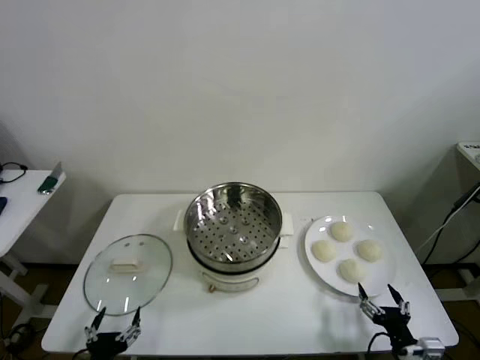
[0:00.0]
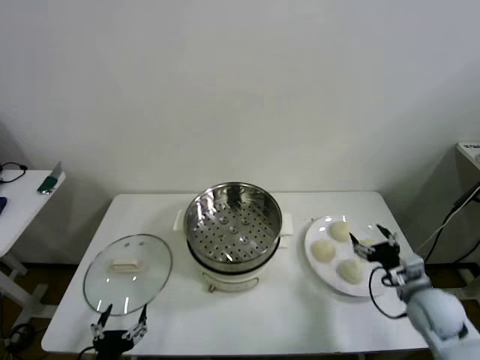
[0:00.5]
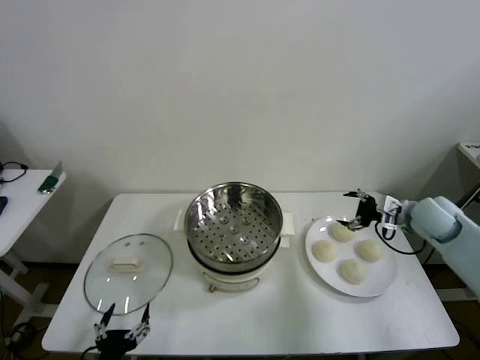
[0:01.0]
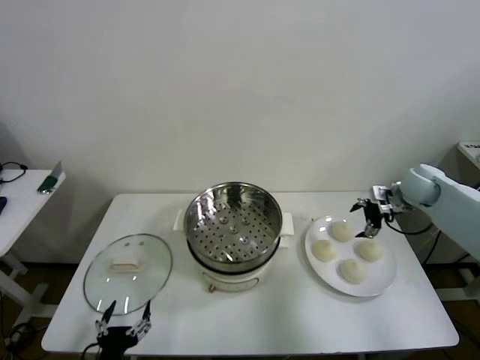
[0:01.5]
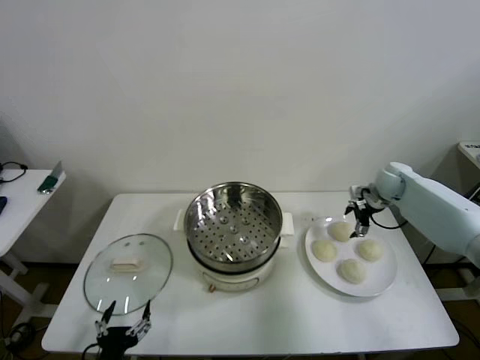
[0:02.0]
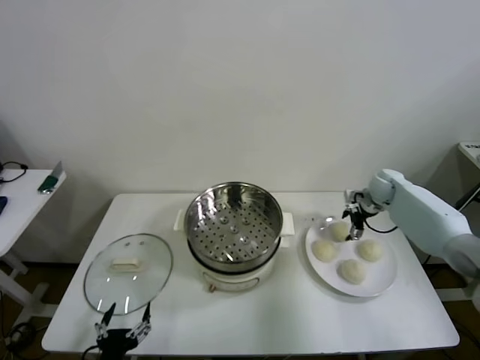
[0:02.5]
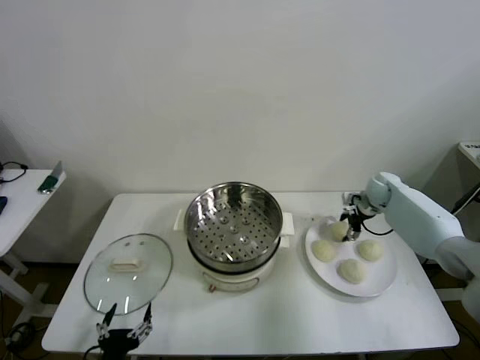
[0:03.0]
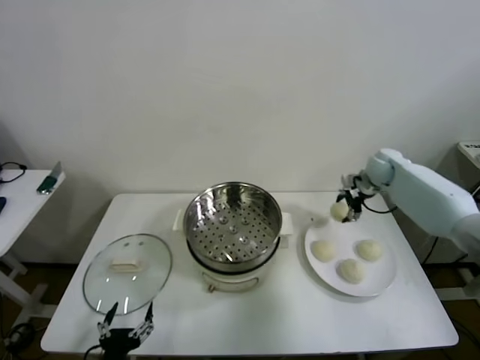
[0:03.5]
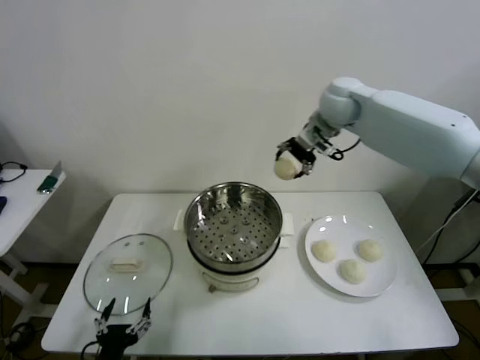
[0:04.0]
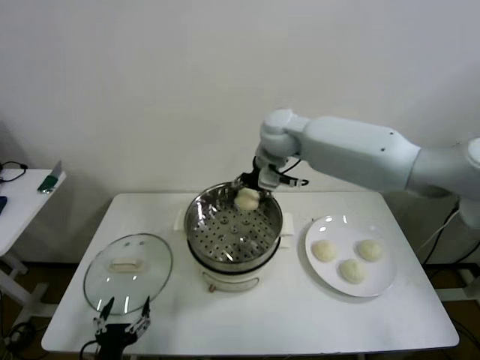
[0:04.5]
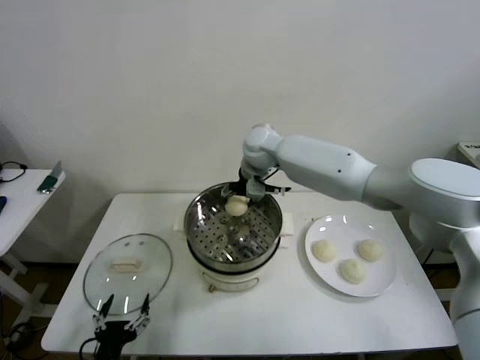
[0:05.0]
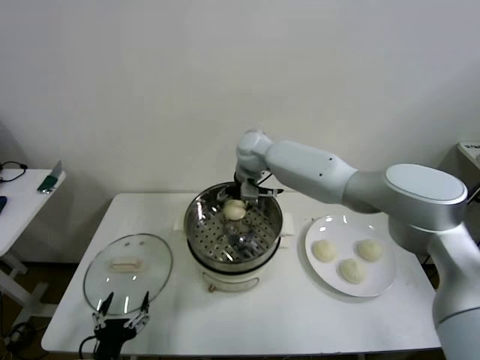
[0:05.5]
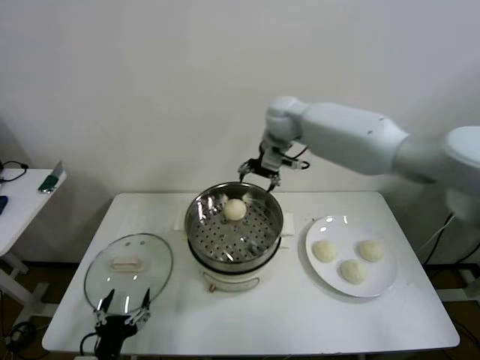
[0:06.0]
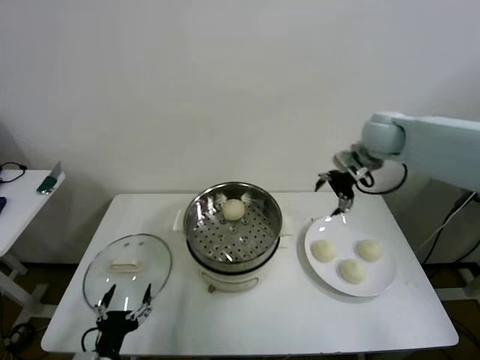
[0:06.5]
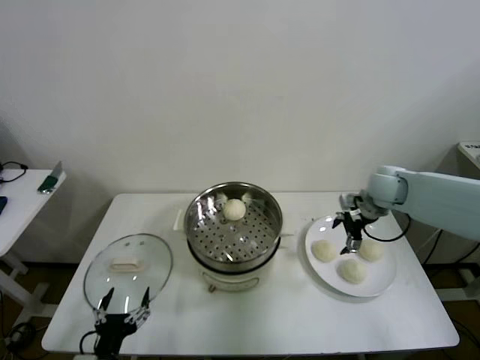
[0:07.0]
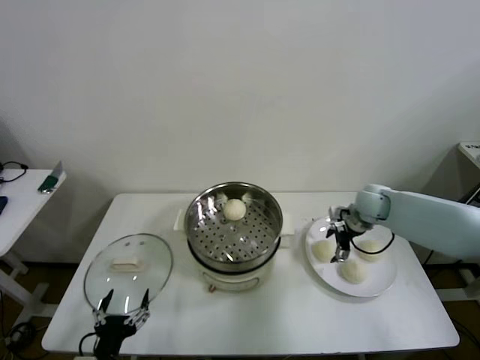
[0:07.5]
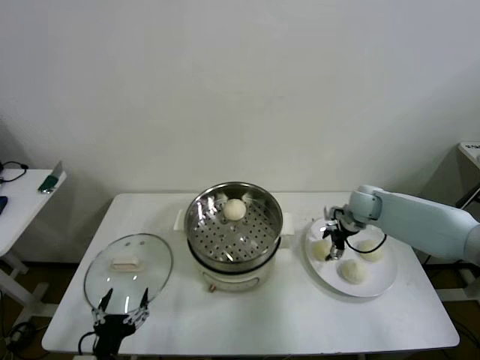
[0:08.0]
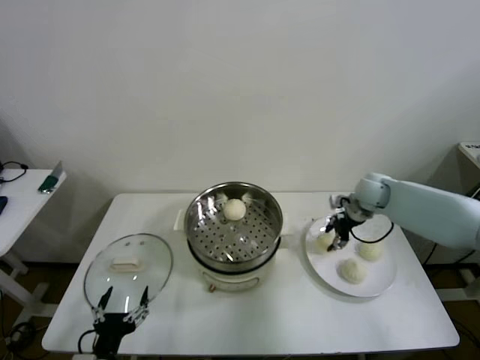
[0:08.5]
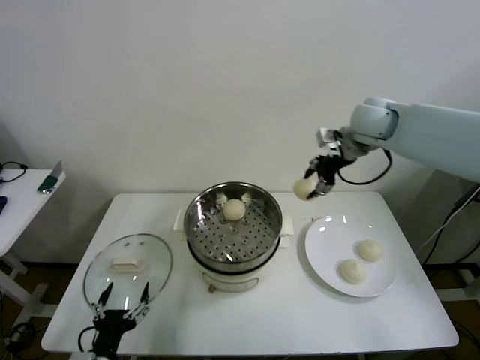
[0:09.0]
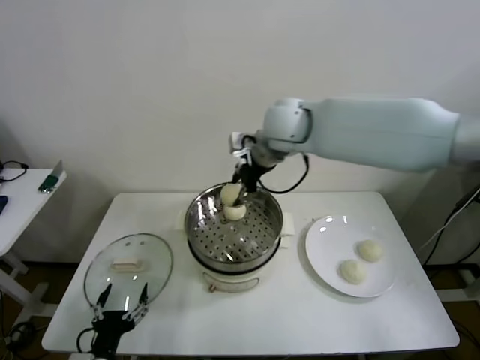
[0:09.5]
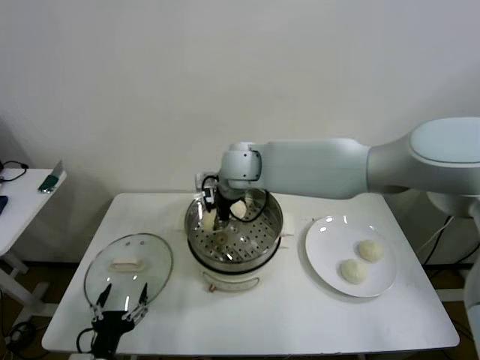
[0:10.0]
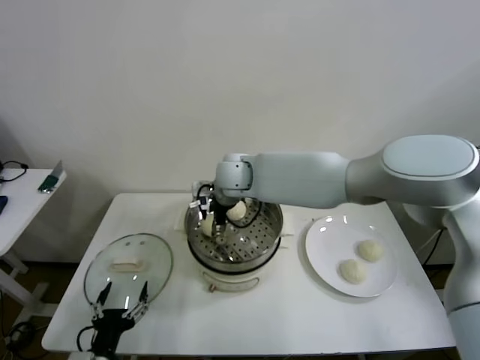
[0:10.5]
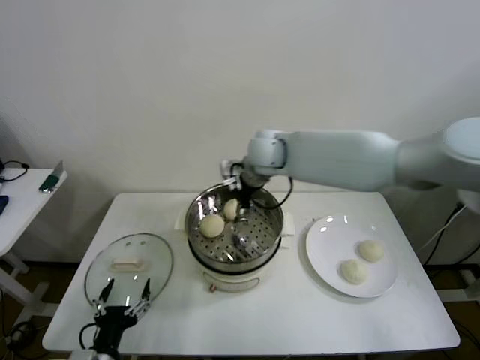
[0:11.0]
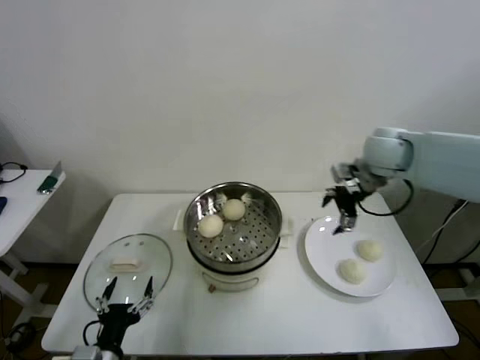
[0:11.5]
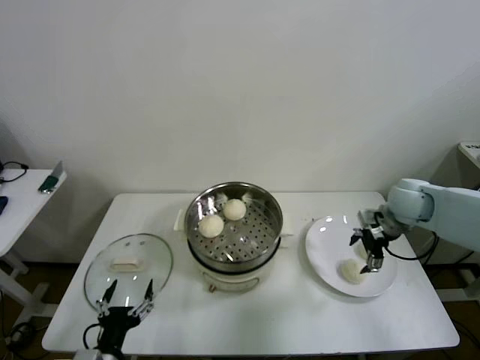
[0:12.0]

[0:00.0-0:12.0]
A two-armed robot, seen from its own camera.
Step, 0:00.0 to 0:03.0: Grasp the baozi in the plate with right gripper.
Step, 0:03.5 to 0:05.5: Place the baozi on the steamer with right gripper.
Step, 0:06.0 to 0:08.0: Grasp the baozi in the plate with right gripper.
Step, 0:08.5 to 0:10.5: Place the baozi on the steamer with right gripper.
0:02.0 to 0:04.0: The right gripper heads upward and to the left, covering roughly 35 cm, and closes up.
0:04.0 to 0:06.0: The right gripper reaches roughly 15 cm to the left, then returns, and opens its fingers.
0:06.0 to 0:08.0: The right gripper moves downward and to the right, some 30 cm, and closes its fingers.
0:08.0 to 0:10.0: The right gripper is displaced to the left and upward by about 35 cm, and closes its fingers.
0:10.0 to 0:12.0: The right gripper heads to the right, covering approximately 40 cm, and opens its fingers.

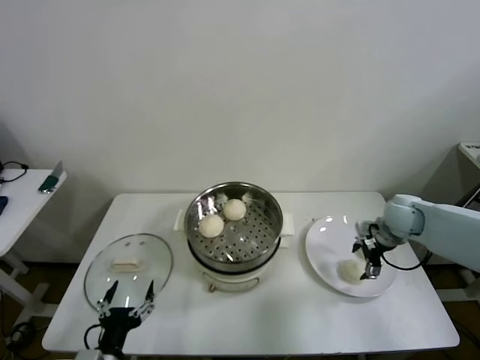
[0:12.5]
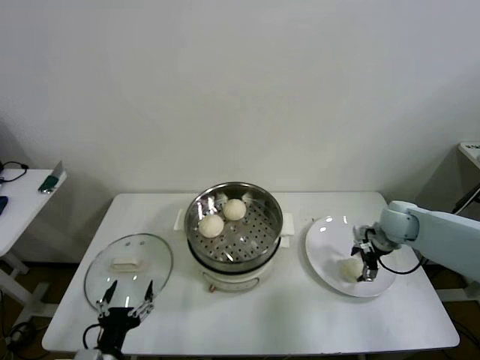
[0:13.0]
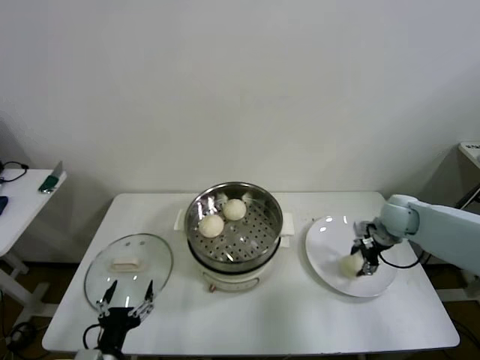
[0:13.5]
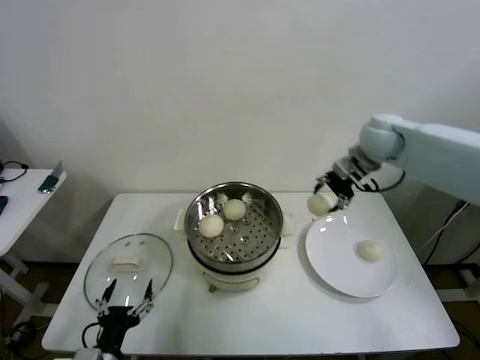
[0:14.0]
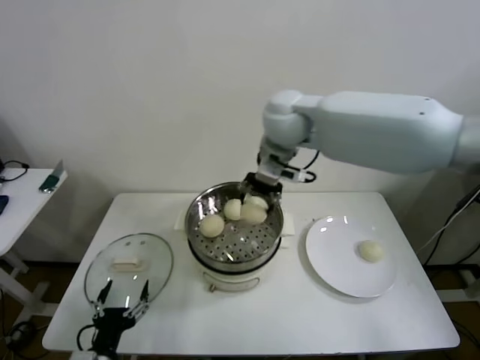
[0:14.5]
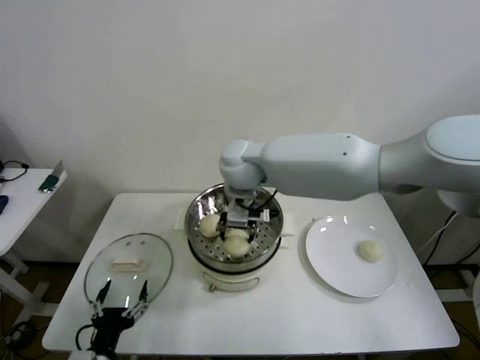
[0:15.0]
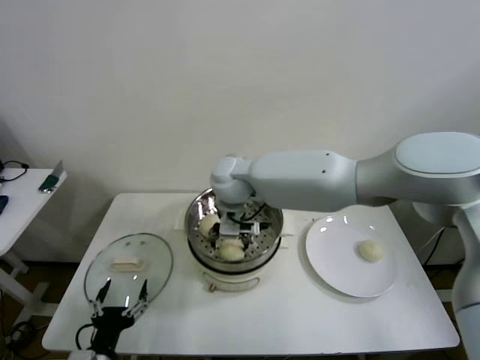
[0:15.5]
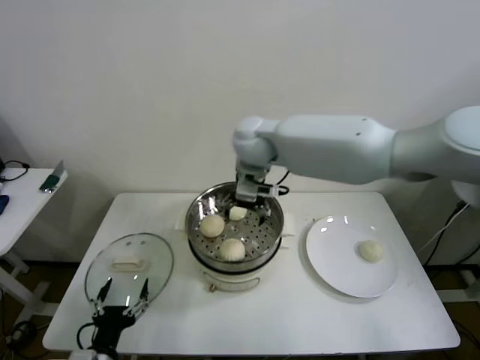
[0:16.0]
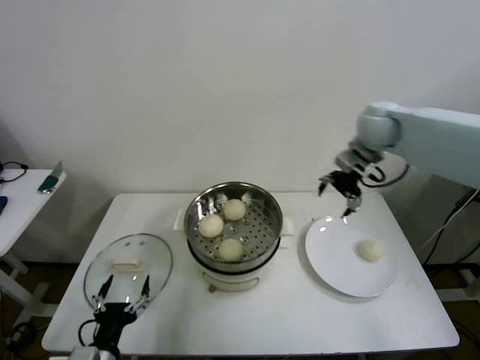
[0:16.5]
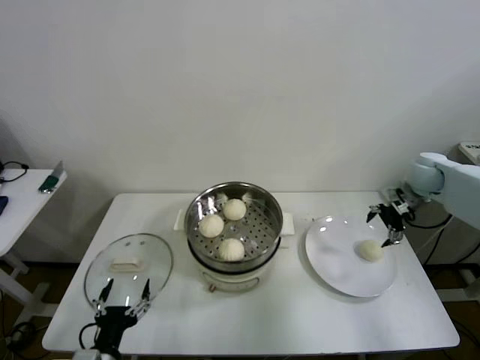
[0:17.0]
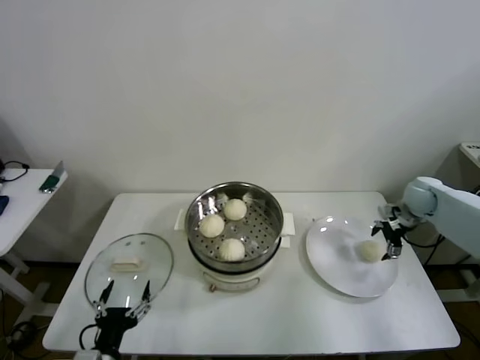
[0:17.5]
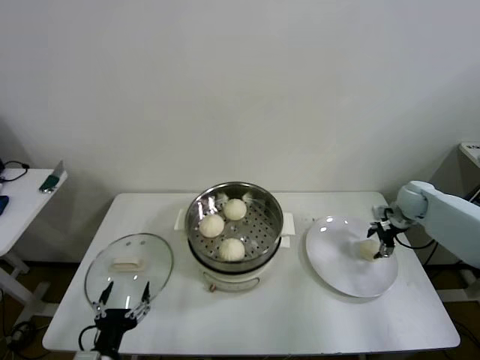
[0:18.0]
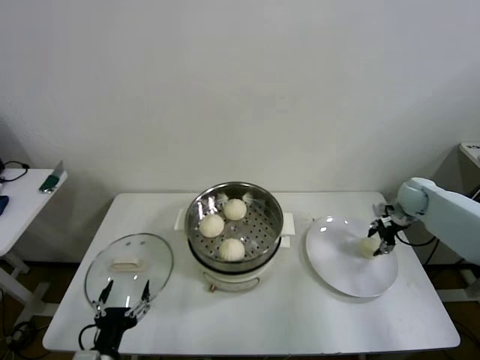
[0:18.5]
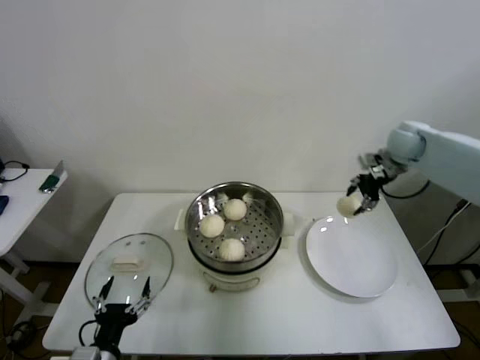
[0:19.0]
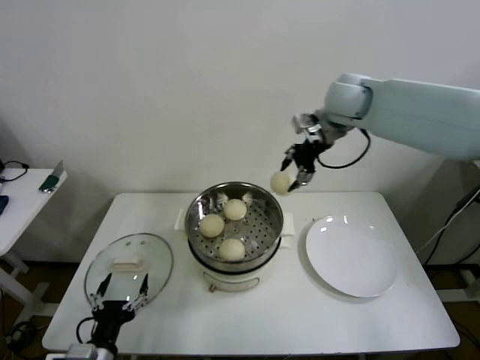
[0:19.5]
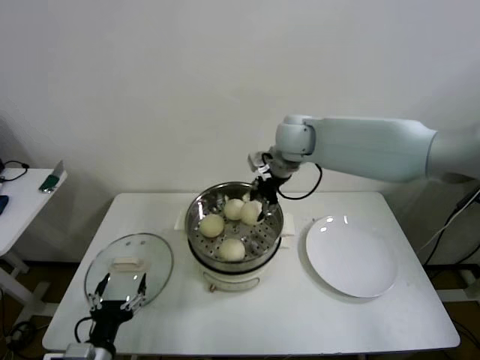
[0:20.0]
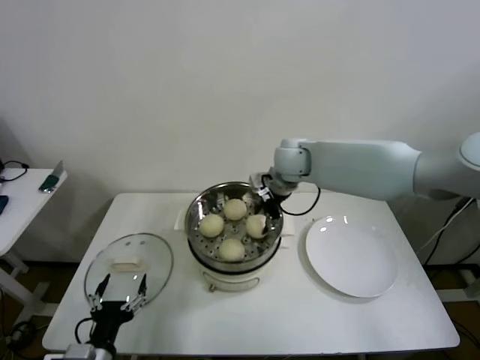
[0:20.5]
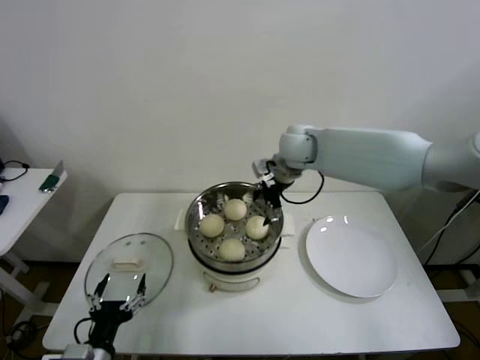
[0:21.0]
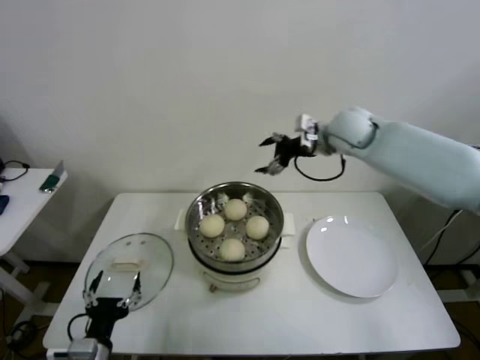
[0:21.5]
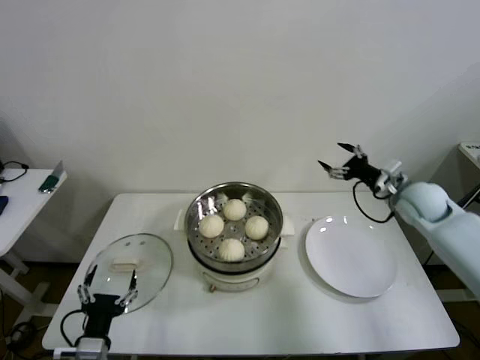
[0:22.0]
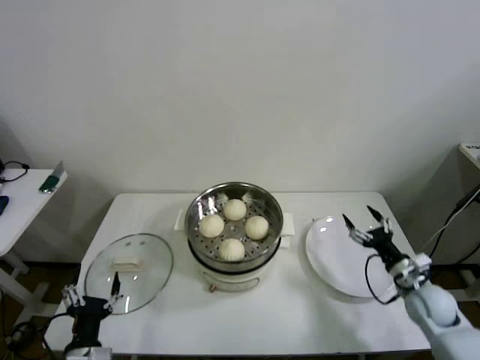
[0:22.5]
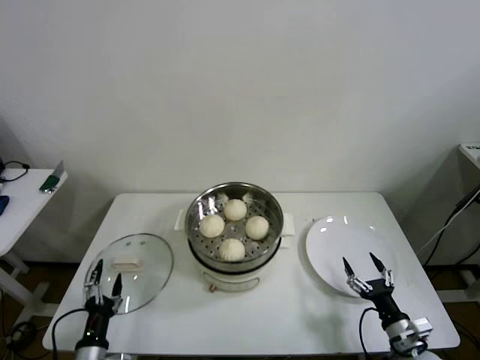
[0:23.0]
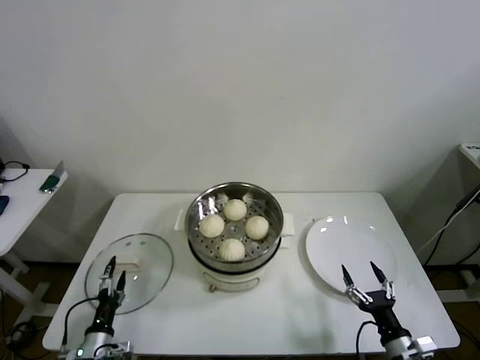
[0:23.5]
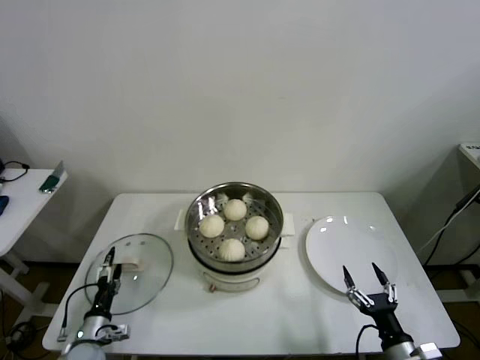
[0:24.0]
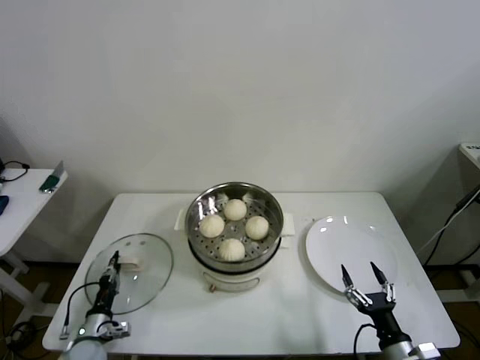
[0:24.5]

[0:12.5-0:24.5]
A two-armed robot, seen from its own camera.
Step, 0:13.0 to 0:15.5: Place the baozi on the steamer with right gripper.
Step, 0:16.0 to 0:18.0: Grasp the baozi in the plate with right gripper.
Step, 0:18.5 to 0:21.0: Place the baozi on the steamer with right gripper.
0:12.5 to 0:14.5: The right gripper heads to the left and upward, covering roughly 40 cm, and closes its fingers.
0:14.5 to 0:16.5: The right gripper is displaced to the right by roughly 25 cm, and opens up.
0:16.5 to 0:18.5: The right gripper moves downward and to the right, some 25 cm, and closes its fingers.
0:18.5 to 0:20.5: The right gripper heads to the left, covering about 35 cm.
0:20.5 to 0:22.5: The right gripper heads to the right, downward and backward, covering some 50 cm, and opens.
0:22.5 to 0:24.5: The left gripper moves downward, forward and to the left, about 20 cm, and closes. Meanwhile the right gripper moves backward and to the left, roughly 20 cm.

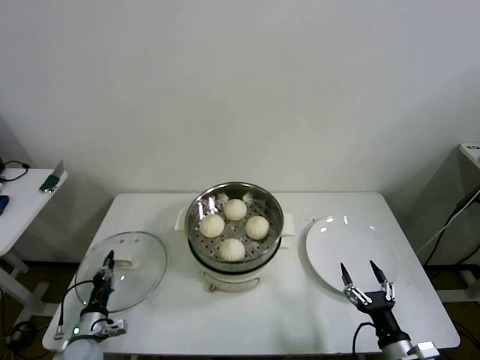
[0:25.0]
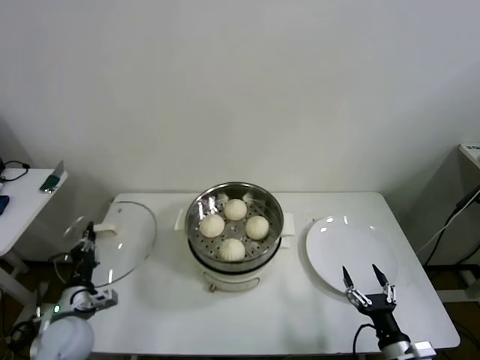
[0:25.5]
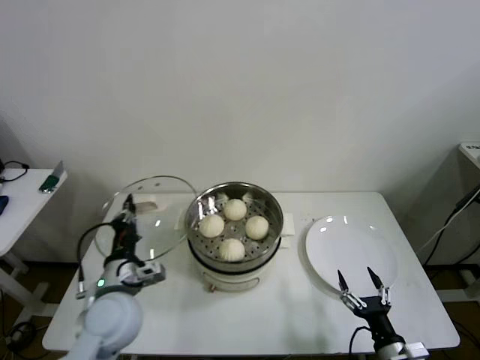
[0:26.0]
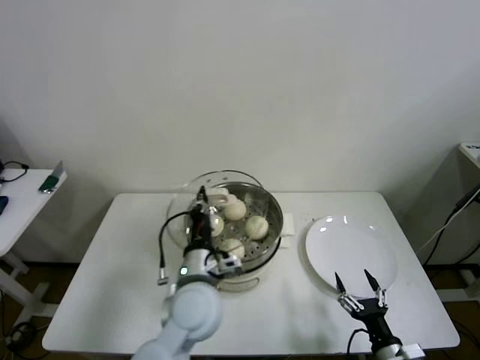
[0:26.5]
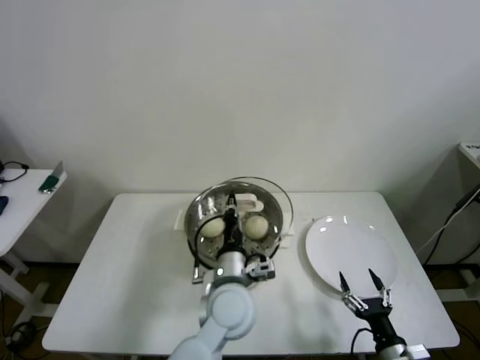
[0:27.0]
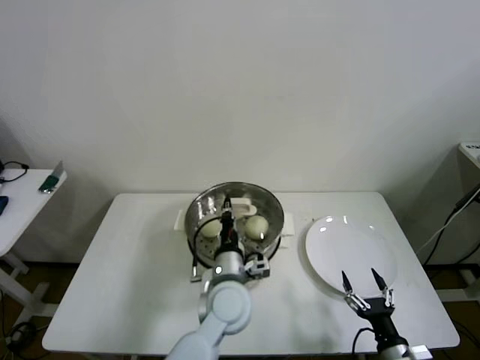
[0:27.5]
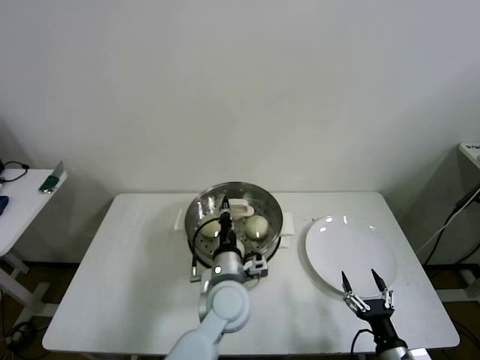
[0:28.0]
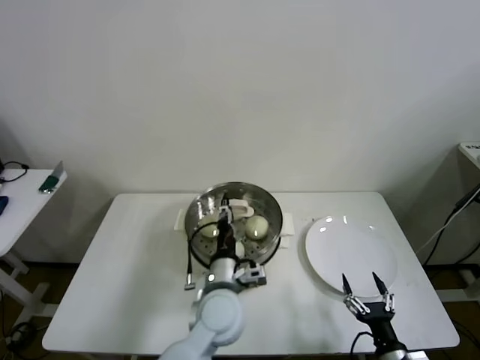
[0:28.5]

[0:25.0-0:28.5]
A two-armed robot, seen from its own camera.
Step, 0:25.0 to 0:28.5: Place the pot lid on the steamer with left gripper.
0:25.0 to 0:27.0: The left gripper travels to the right and upward by some 40 cm.
0:27.0 to 0:28.5: The left gripper opens up.
